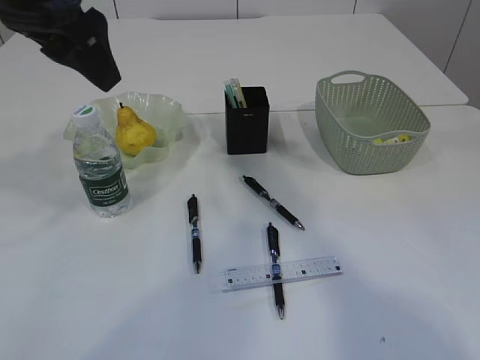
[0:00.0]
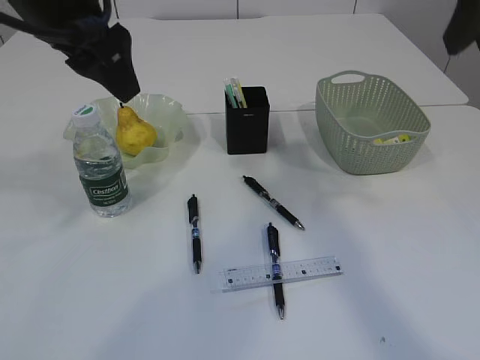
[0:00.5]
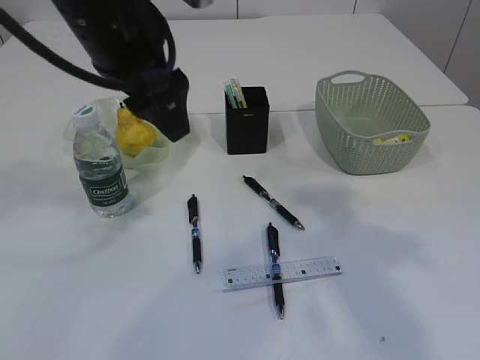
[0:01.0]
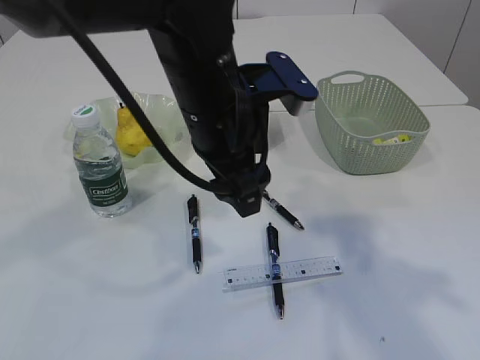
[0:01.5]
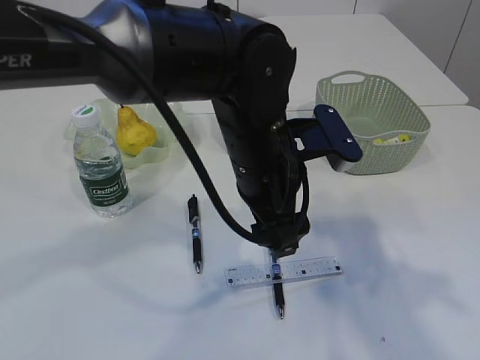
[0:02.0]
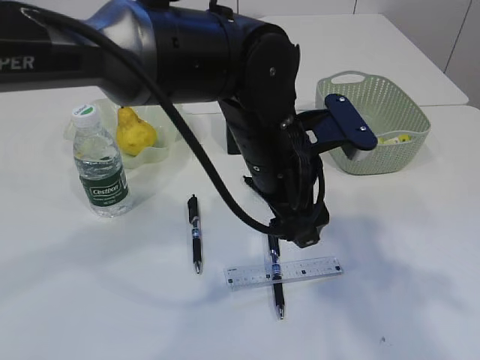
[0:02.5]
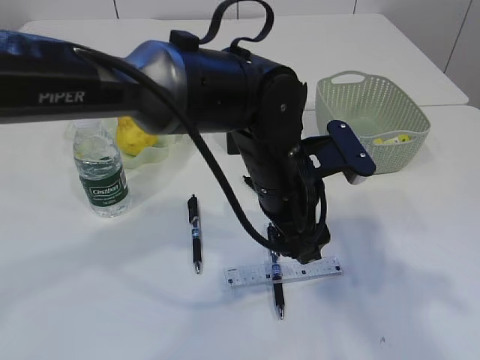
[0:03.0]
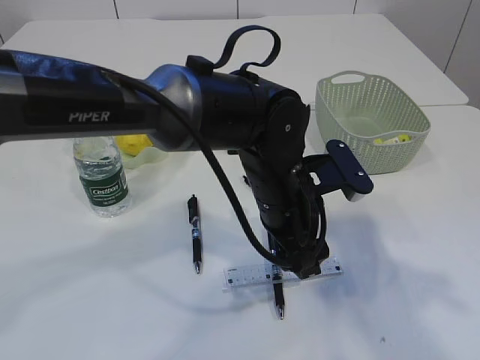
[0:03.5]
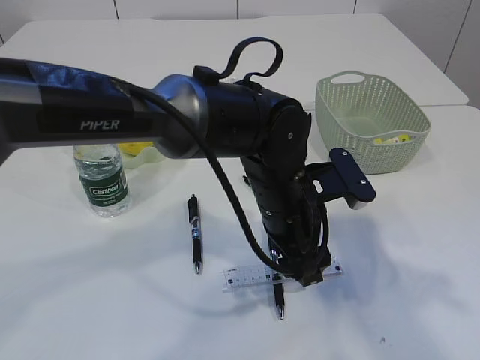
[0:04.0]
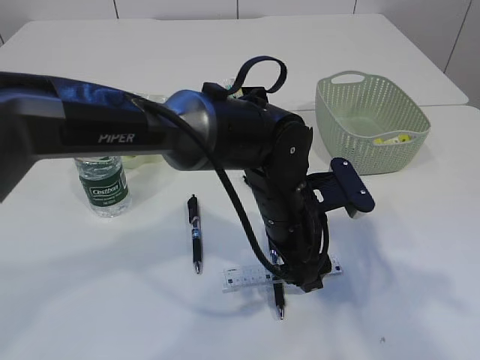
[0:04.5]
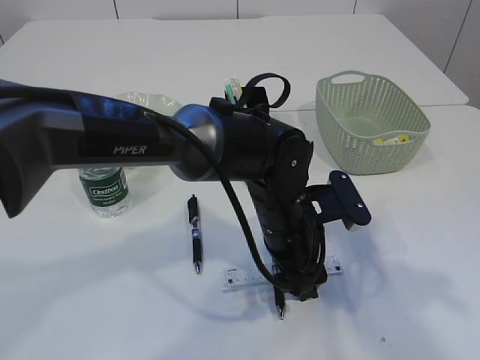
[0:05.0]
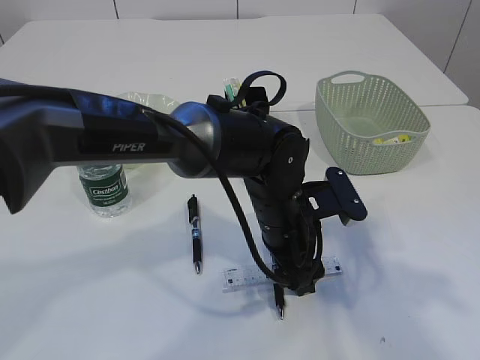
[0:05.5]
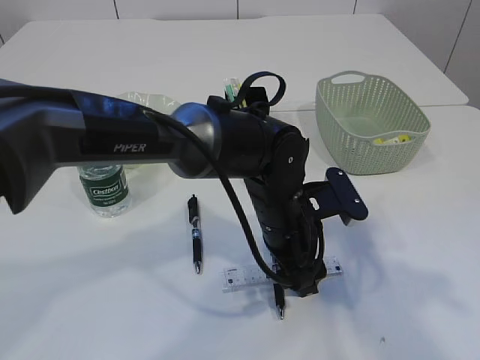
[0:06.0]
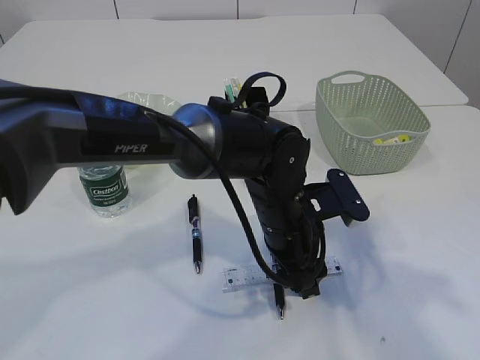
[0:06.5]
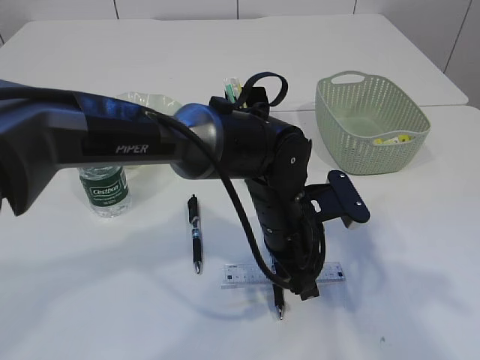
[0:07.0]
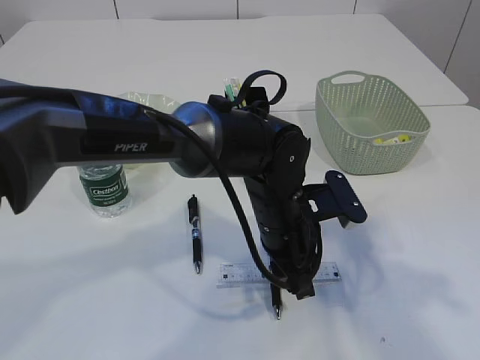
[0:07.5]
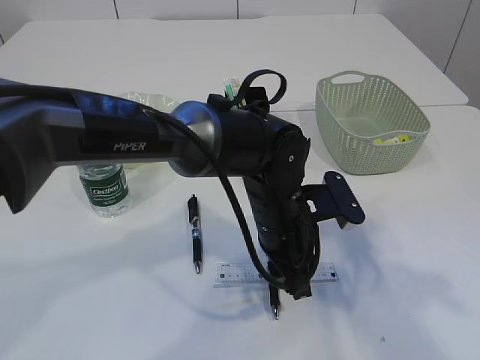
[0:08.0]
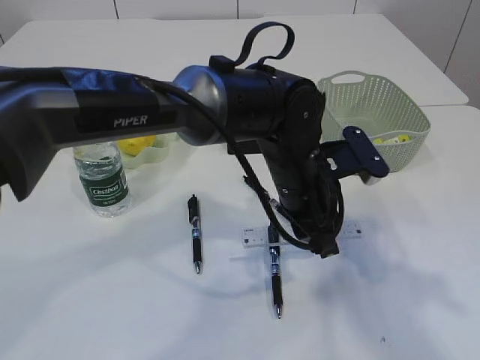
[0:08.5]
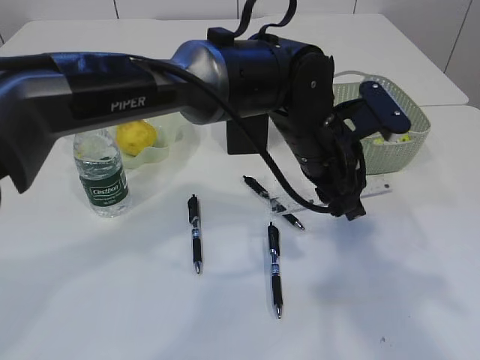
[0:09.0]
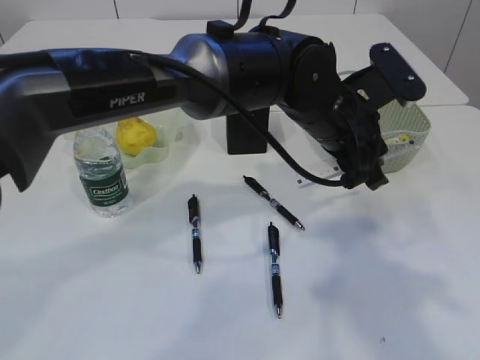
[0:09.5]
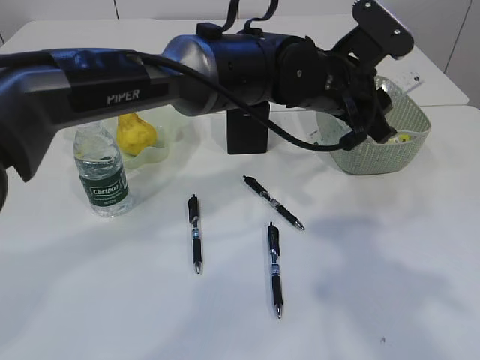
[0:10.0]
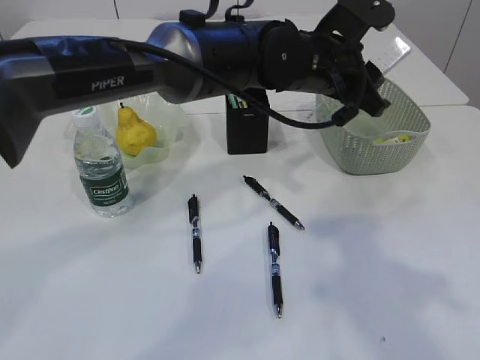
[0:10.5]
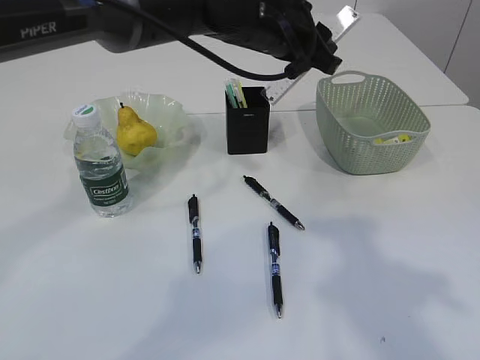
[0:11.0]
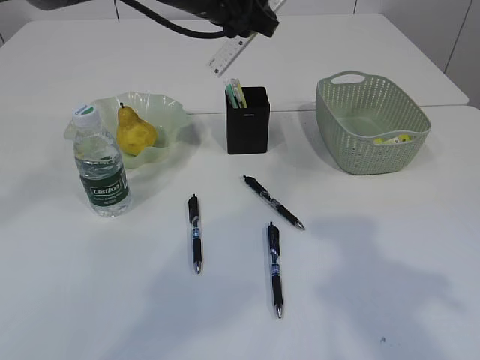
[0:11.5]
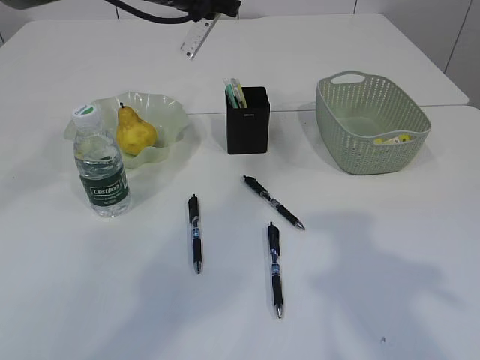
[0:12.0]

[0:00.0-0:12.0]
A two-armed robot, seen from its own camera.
Step, 0:00.0 to 0:09.5: pick up the ruler.
0:00.0 to 0:02.0: The left gripper shifts some 25 cm to the right and downward, while the right gripper moves backward, downward and to the right, roughly 20 cm.
0:02.0 to 0:04.0: The left gripper shifts roughly 5 cm downward.
0:04.0 to 0:06.0: The grippers make only small movements.
0:06.0 to 0:08.0: The left gripper closes up.
0:08.0 to 0:10.0: The left gripper is displaced upward and forward by approximately 15 cm.
0:10.0 to 0:12.0: The left gripper travels to the left, forward and upward by some 20 cm.

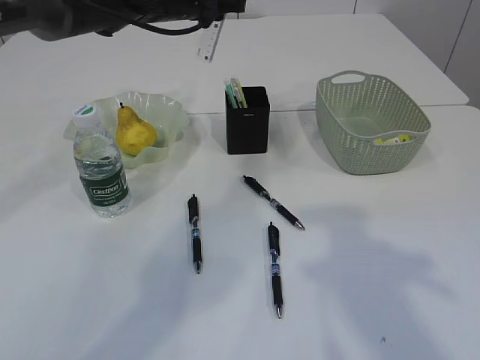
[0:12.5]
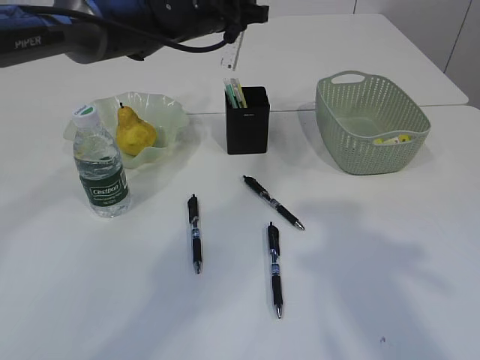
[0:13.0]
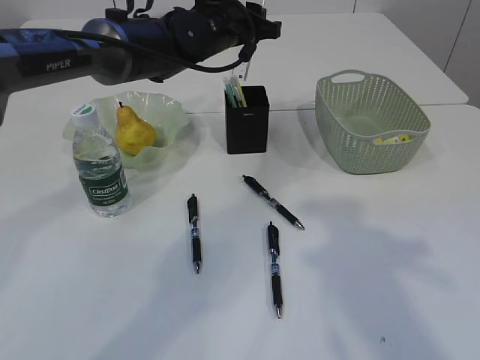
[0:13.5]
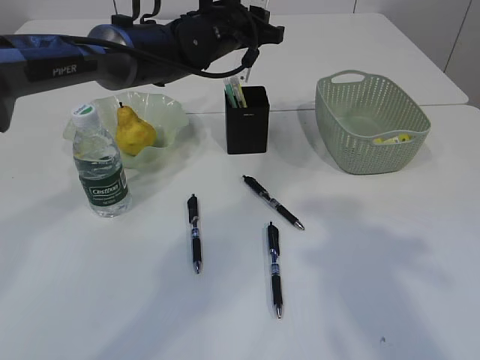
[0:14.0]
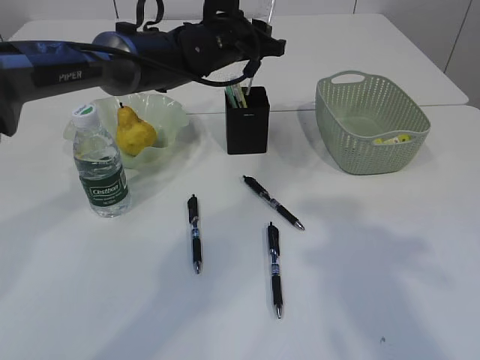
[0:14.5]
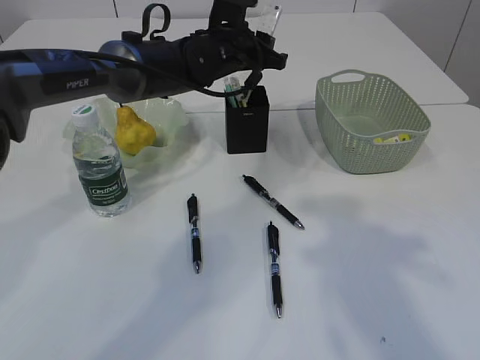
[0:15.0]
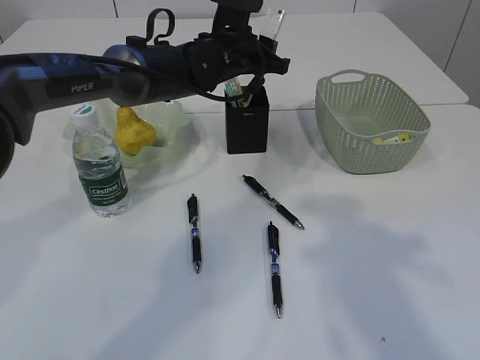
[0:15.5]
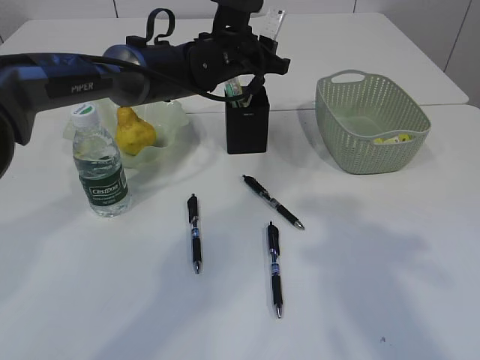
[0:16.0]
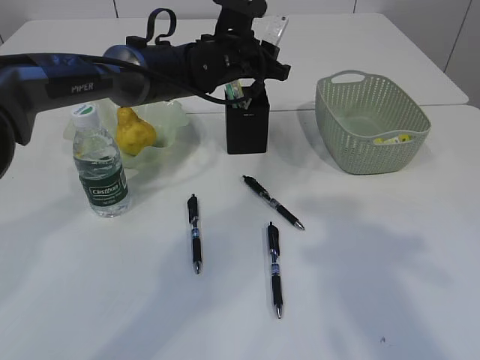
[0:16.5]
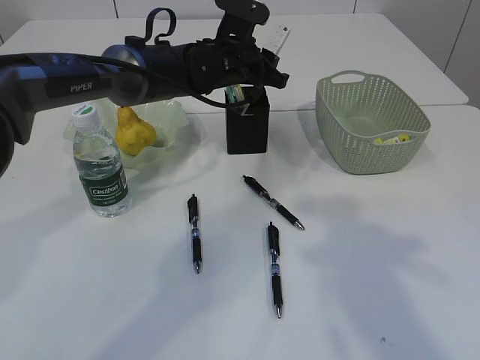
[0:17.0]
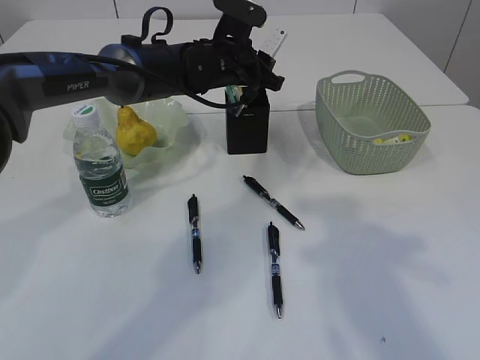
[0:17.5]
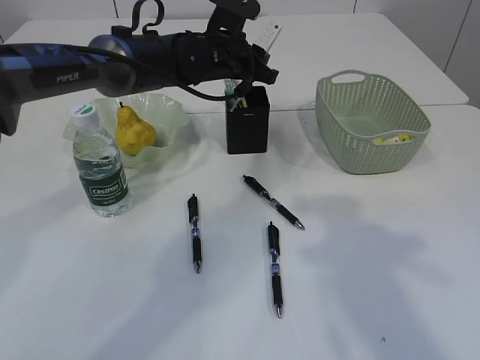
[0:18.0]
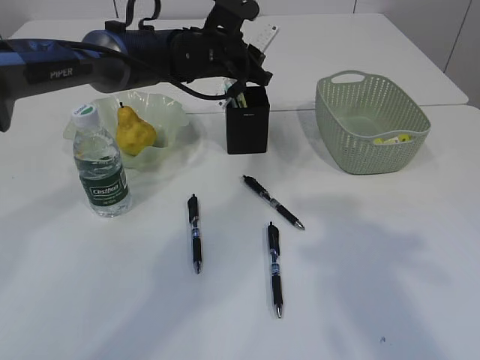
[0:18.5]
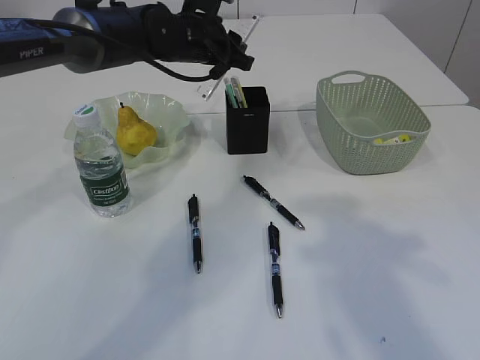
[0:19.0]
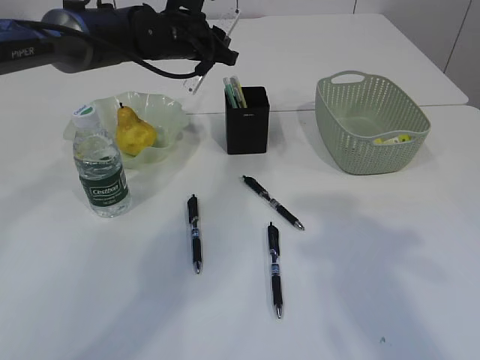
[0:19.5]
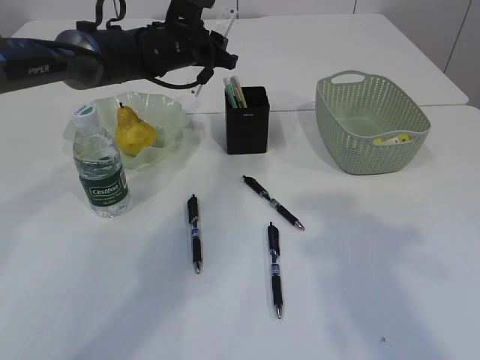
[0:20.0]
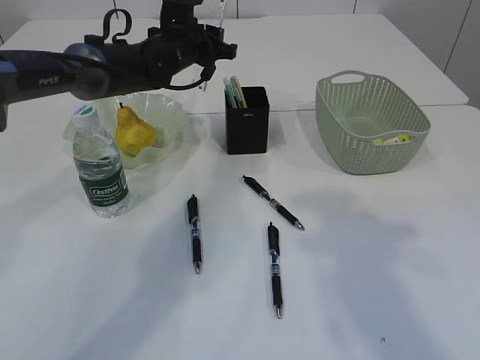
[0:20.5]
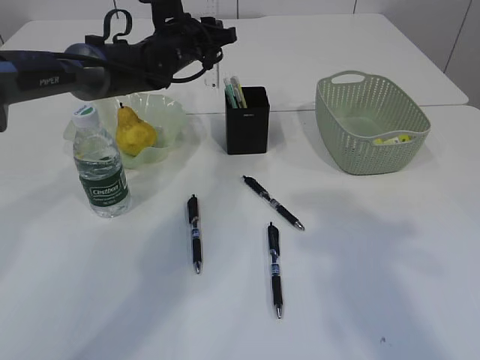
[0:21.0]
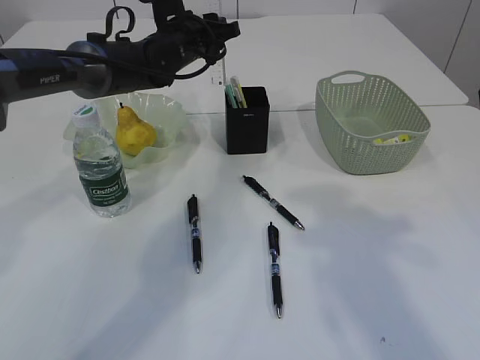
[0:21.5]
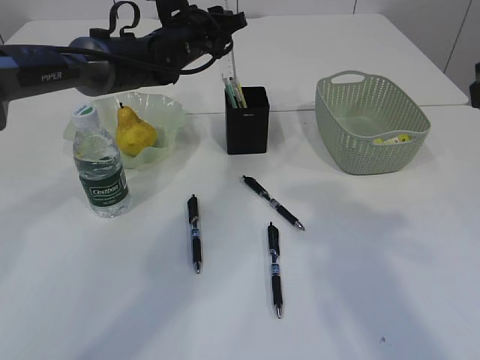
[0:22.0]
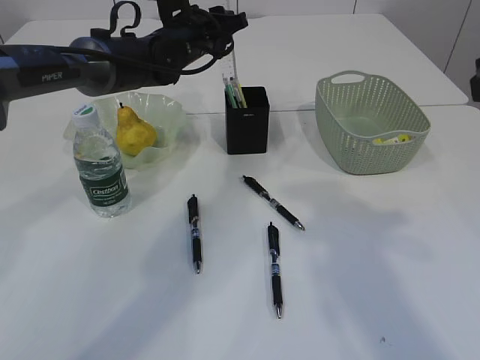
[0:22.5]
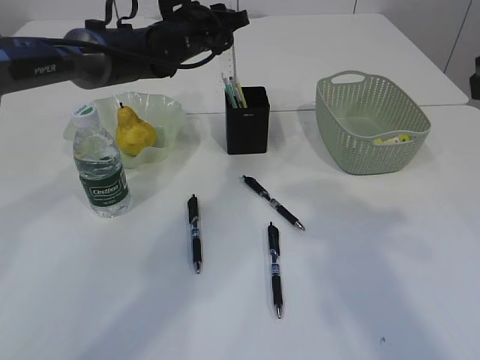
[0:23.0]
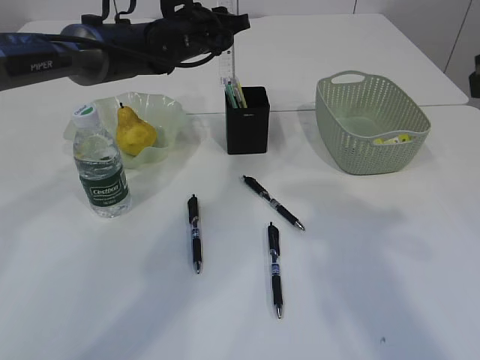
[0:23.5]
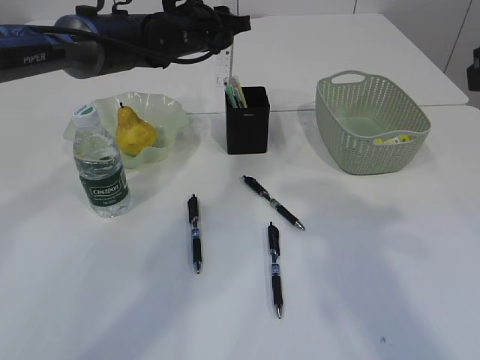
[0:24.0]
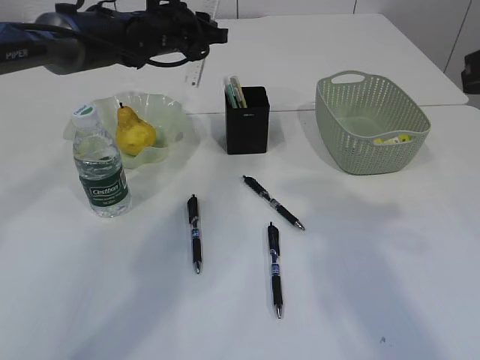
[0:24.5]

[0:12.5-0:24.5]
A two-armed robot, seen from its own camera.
0:12.5 to 0:14.5: The left gripper shifts roughly 10 cm downward and to the right.
0:14.5 to 0:18.5: The grippers move only a little.
0:18.5 to 0:20.5: The left gripper moves to the left, some 5 cm.

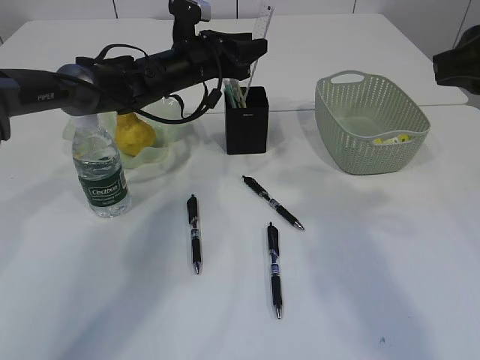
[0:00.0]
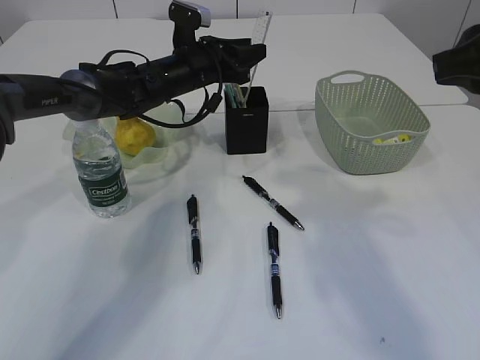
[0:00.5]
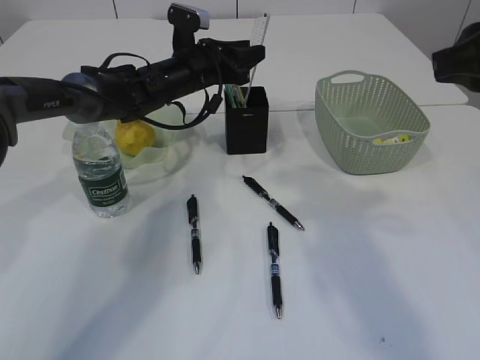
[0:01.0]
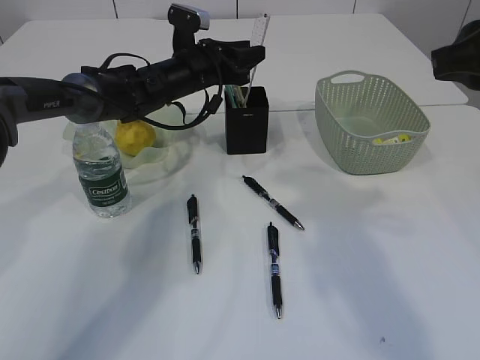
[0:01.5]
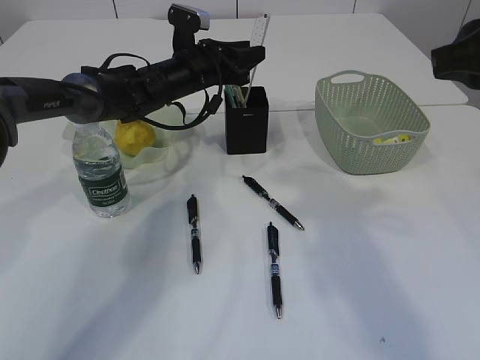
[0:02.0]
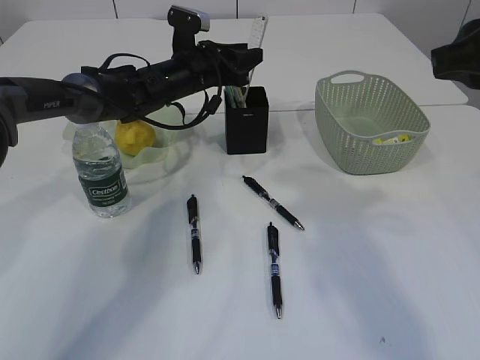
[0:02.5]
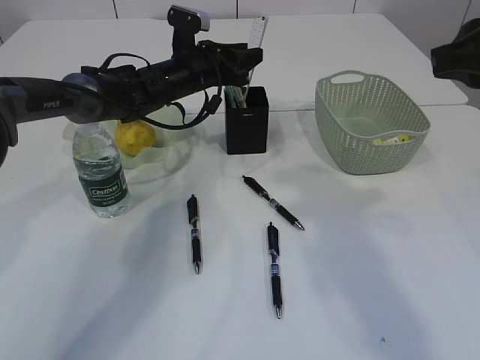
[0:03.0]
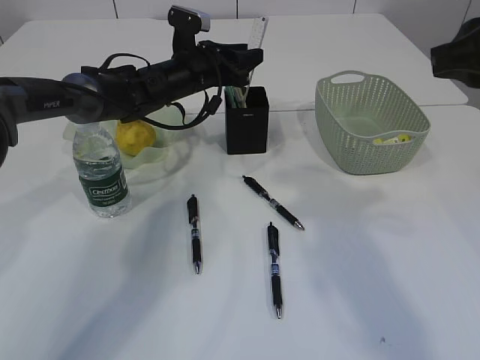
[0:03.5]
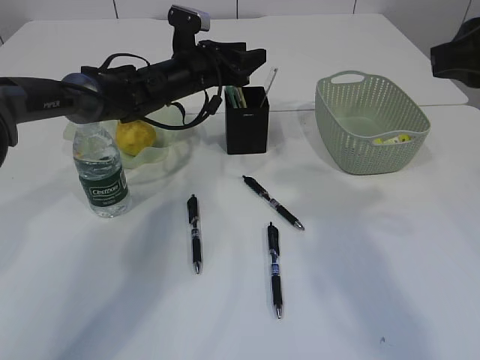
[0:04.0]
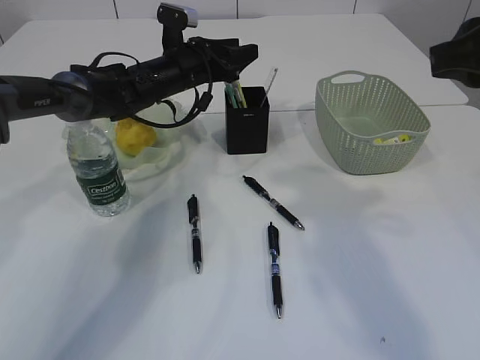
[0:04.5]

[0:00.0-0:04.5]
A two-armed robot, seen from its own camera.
0:00.0 to 0:02.0: Neither gripper changes place.
0:02.0 to 0:04.5: The left gripper opens its fingers.
